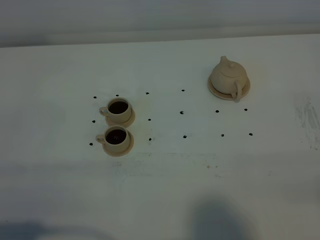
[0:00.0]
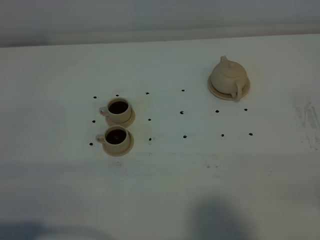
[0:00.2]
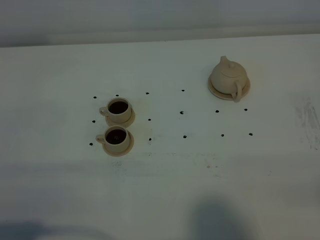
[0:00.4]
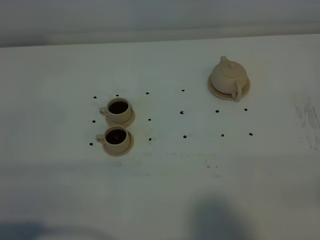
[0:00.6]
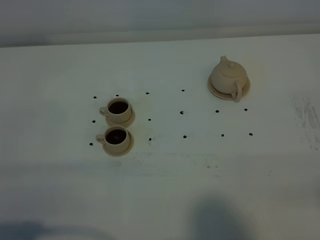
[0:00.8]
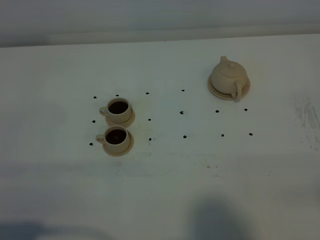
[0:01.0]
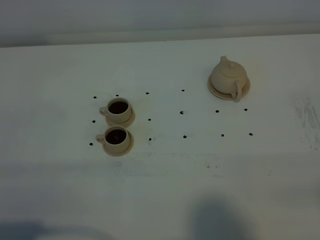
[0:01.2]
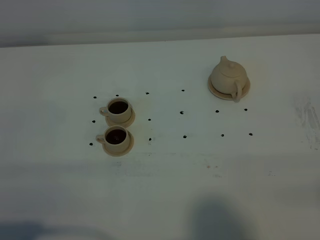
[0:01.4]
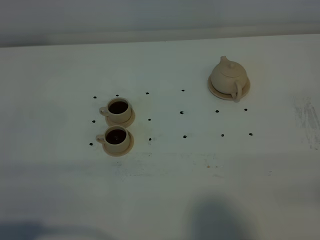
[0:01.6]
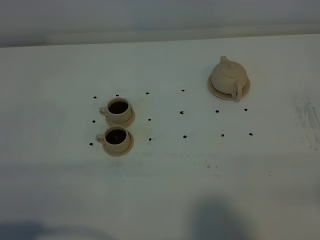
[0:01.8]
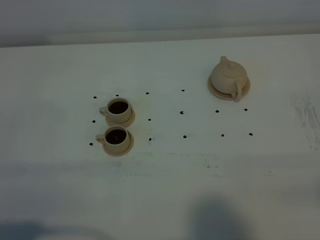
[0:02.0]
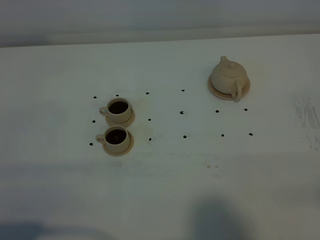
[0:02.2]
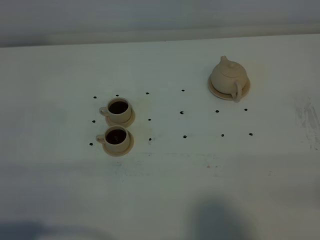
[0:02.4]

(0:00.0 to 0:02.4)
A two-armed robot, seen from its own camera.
Task of the whole recording: grasp the brown teapot and pour the tea into the two brown teacups one by one, put the brown teapot back in its original place.
0:01.2 - 0:02.4: Neither gripper changes place.

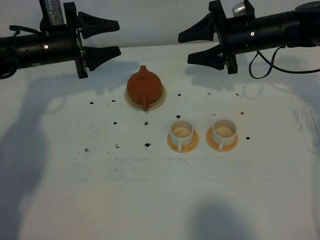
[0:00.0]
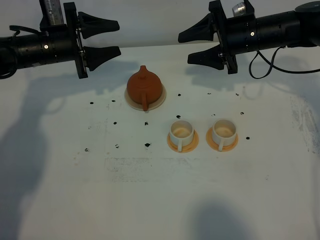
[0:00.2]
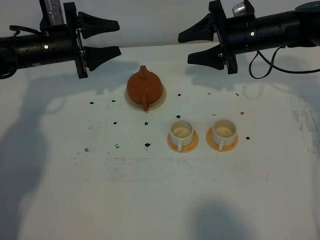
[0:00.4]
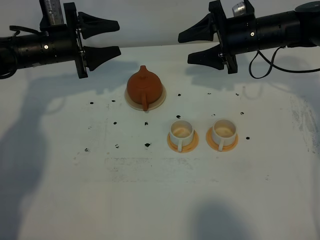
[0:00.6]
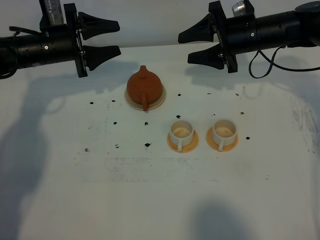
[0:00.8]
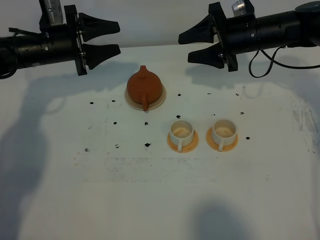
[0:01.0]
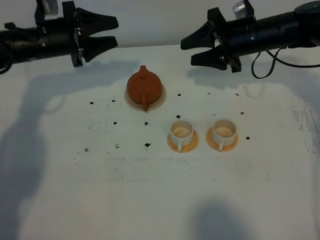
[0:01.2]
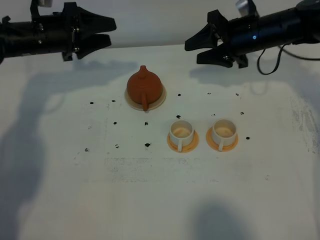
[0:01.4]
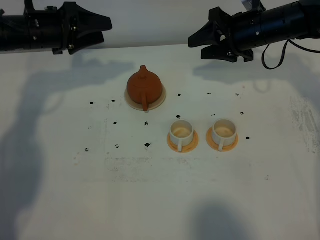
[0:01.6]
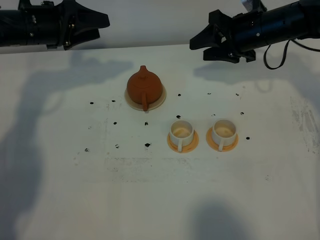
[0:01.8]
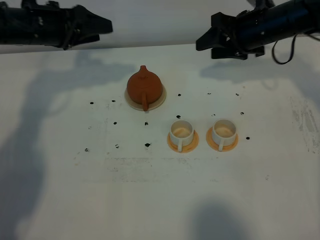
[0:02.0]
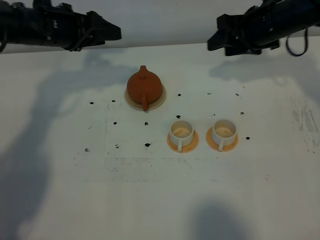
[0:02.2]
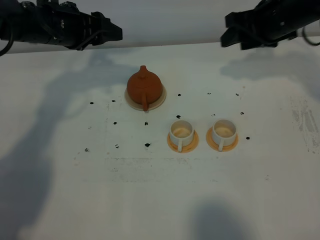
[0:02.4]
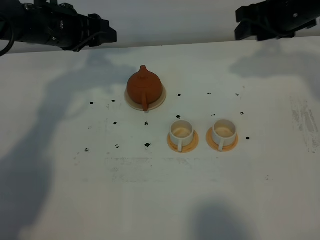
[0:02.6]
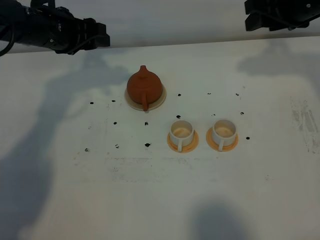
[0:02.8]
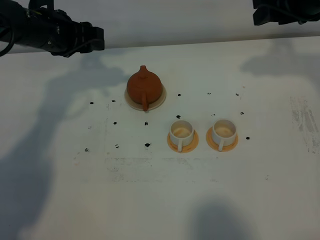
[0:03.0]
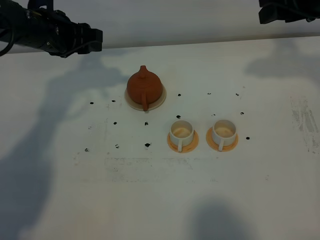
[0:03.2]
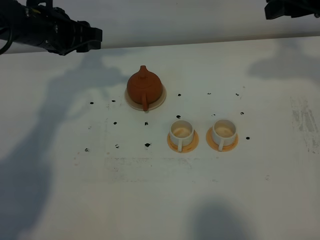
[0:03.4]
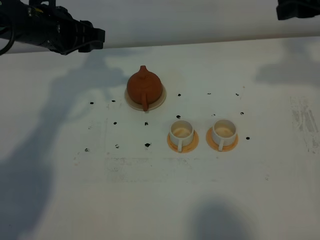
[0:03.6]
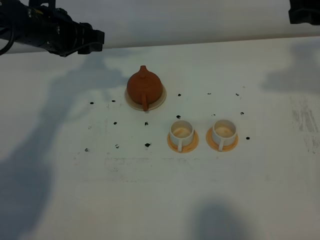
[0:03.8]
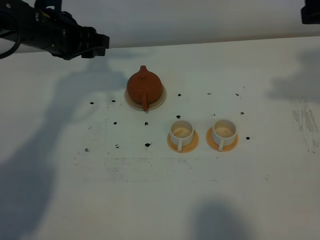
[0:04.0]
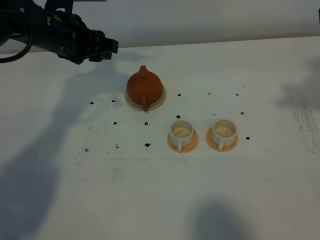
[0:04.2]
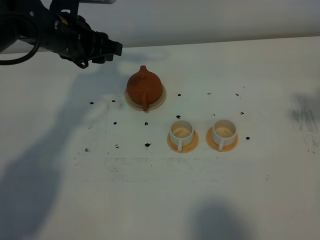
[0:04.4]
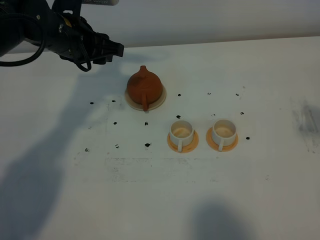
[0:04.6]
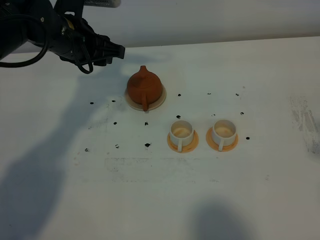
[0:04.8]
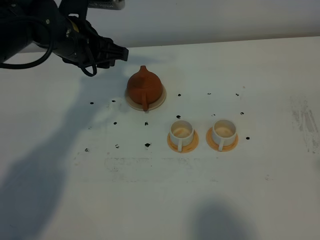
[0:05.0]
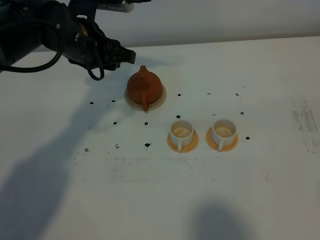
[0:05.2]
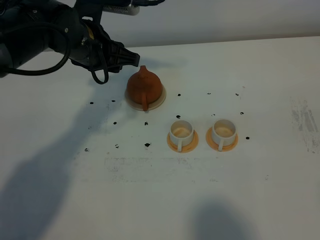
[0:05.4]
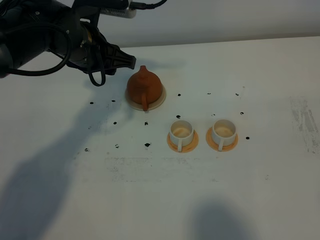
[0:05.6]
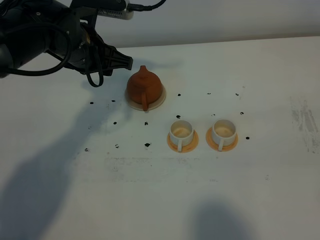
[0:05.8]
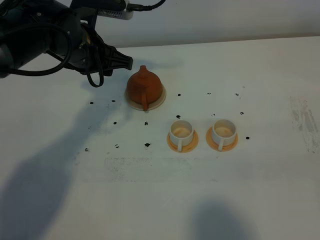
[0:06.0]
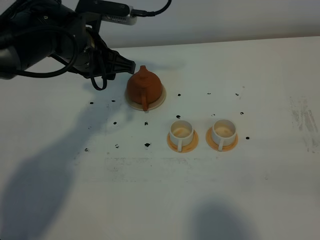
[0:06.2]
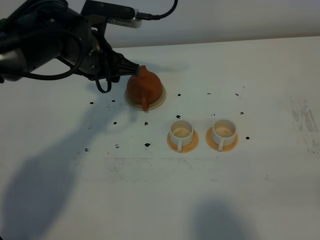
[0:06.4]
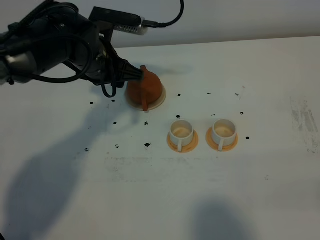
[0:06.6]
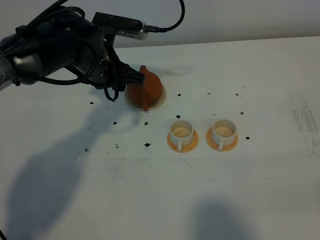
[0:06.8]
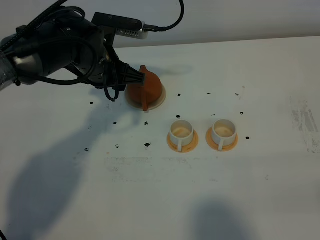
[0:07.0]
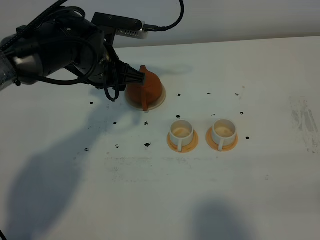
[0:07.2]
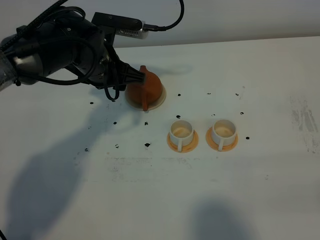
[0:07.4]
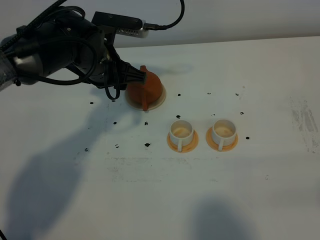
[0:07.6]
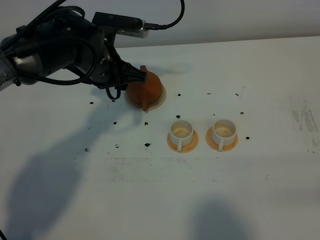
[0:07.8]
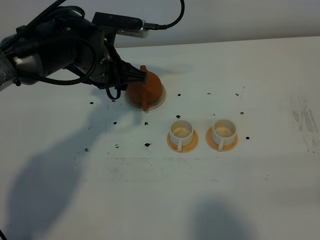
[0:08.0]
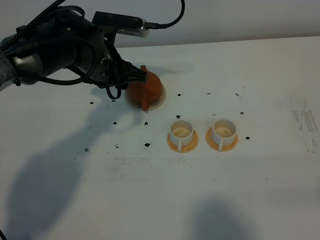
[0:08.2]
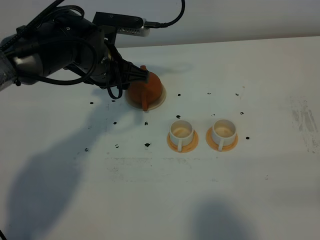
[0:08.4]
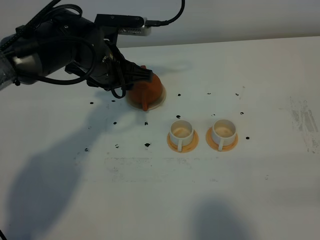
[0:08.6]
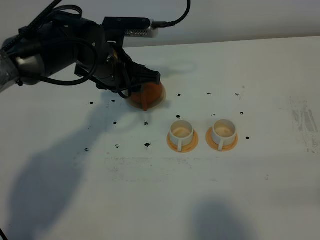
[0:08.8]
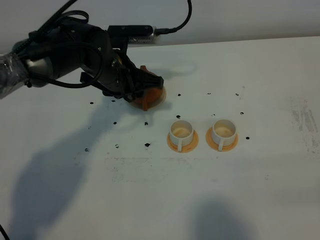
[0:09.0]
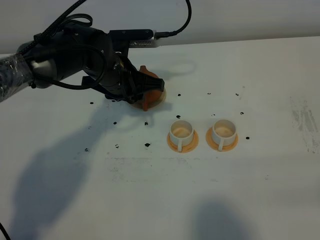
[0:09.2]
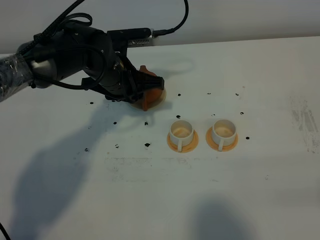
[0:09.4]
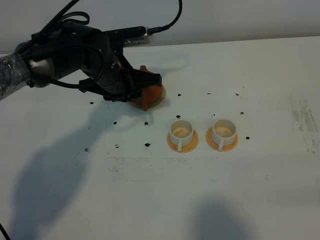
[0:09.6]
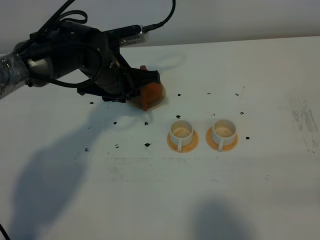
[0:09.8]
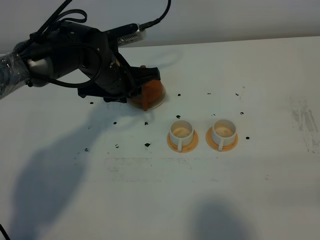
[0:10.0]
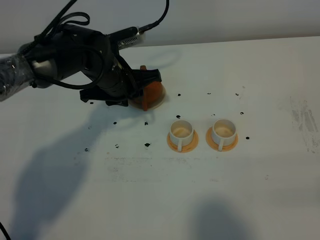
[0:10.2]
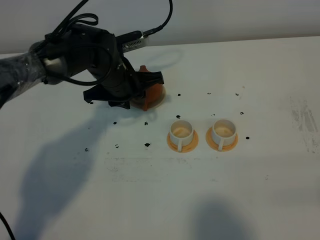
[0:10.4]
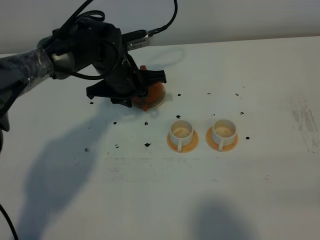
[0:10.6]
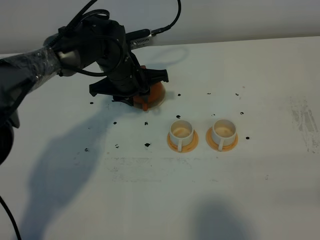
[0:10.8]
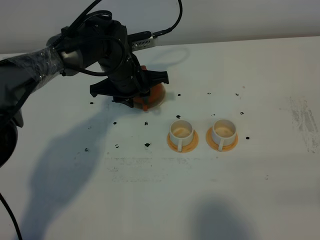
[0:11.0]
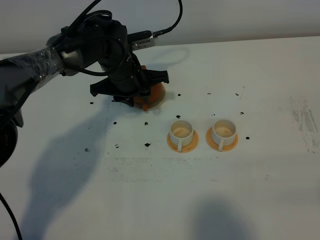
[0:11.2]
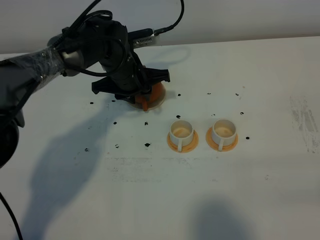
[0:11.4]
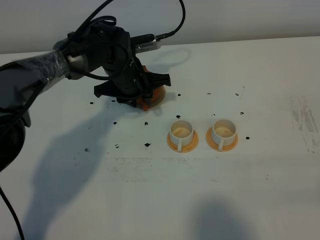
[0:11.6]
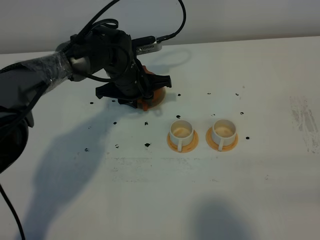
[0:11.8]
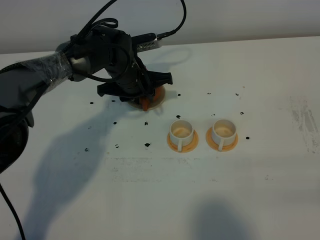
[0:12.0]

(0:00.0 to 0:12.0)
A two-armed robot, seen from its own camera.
Task of the whole recording: grasp the brown teapot and pour the tea into the two white teacups one by one, put the brown teapot back in its original place.
0:00.0 - 0:01.6: The left gripper goes about 5 cm upward.
0:01.6 - 0:03.0: The right gripper heads upward and backward, covering some 15 cm.
0:03.0 - 0:04.4: The right gripper goes roughly 20 cm backward and upward.
0:04.4 - 0:06.0: The right gripper is displaced backward and downward by about 20 cm.
0:06.0 - 0:07.6: The right gripper goes about 5 cm downward.
0:07.6 - 0:09.0: The grippers make only small movements.
0:10.4 - 0:12.0: The grippers make only small movements.

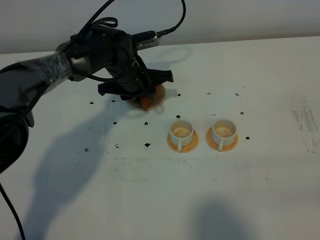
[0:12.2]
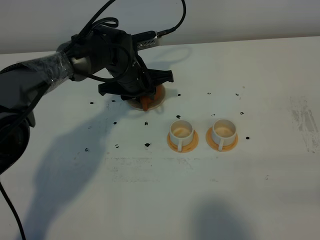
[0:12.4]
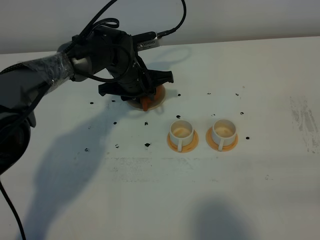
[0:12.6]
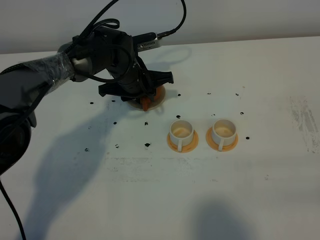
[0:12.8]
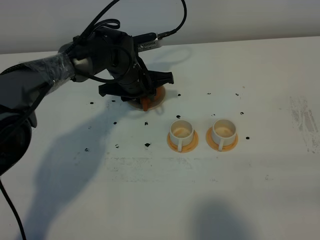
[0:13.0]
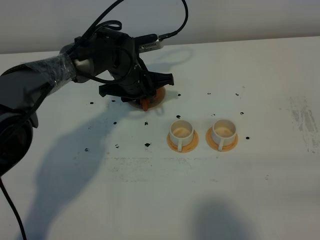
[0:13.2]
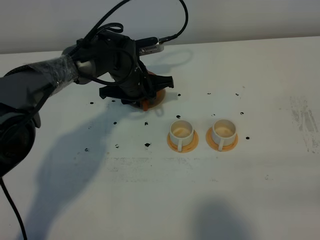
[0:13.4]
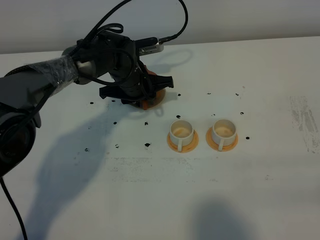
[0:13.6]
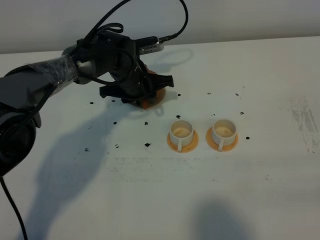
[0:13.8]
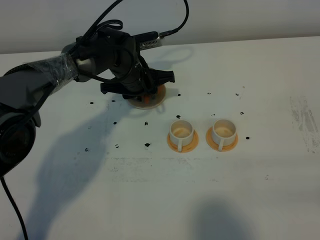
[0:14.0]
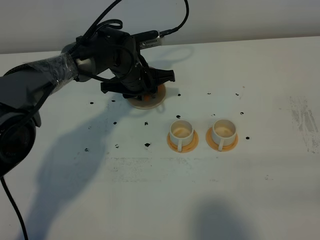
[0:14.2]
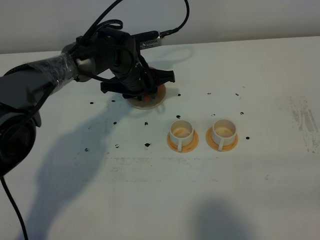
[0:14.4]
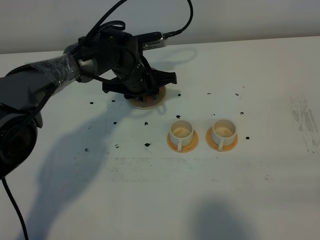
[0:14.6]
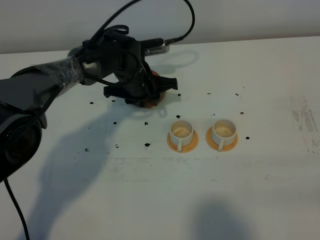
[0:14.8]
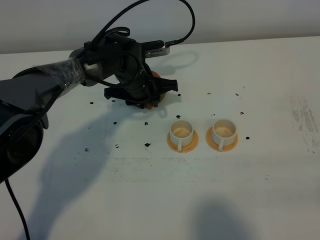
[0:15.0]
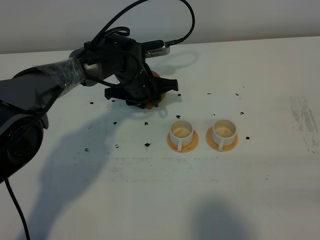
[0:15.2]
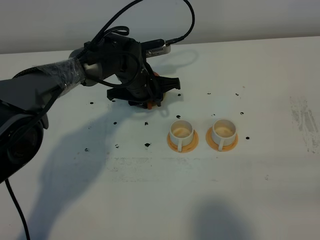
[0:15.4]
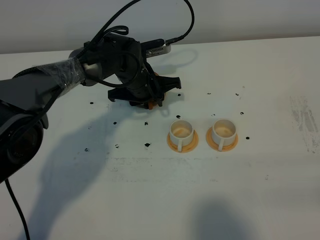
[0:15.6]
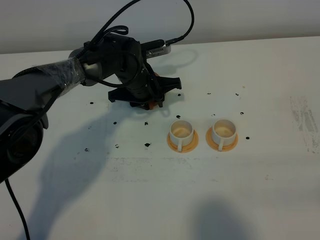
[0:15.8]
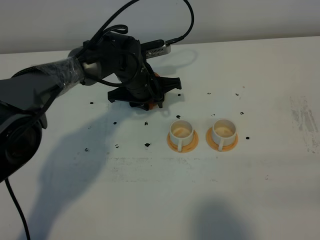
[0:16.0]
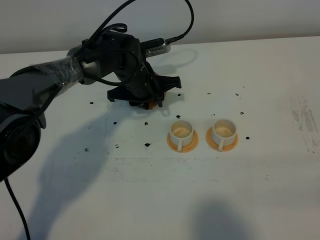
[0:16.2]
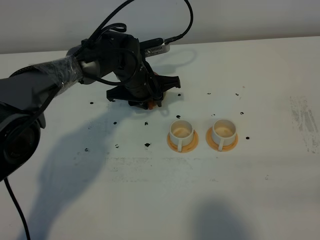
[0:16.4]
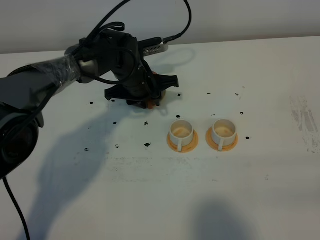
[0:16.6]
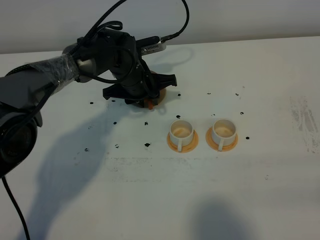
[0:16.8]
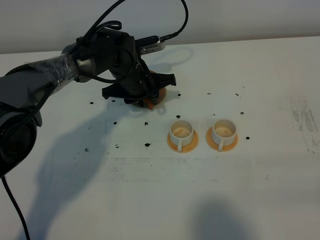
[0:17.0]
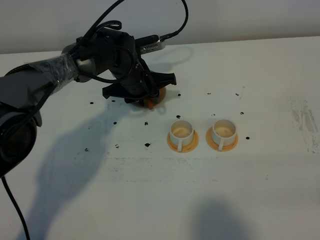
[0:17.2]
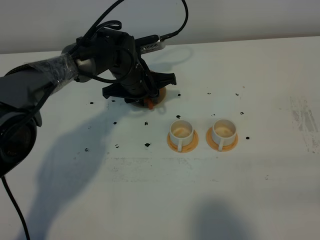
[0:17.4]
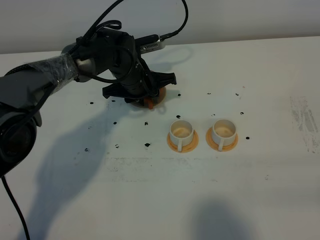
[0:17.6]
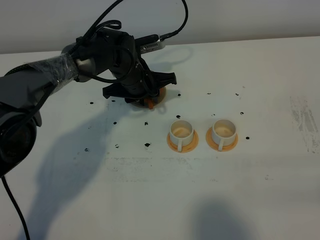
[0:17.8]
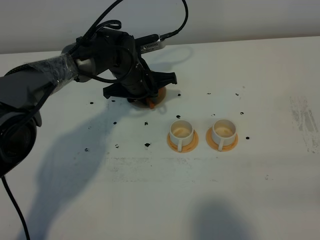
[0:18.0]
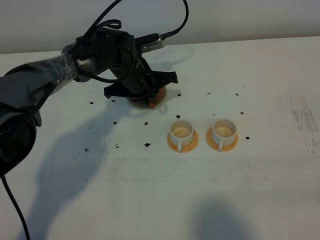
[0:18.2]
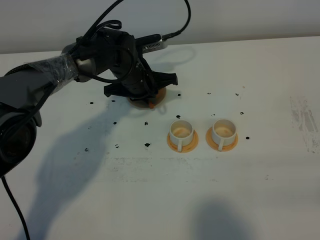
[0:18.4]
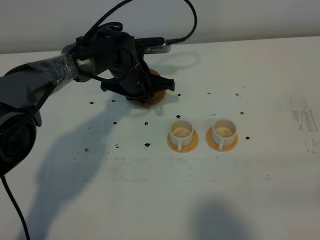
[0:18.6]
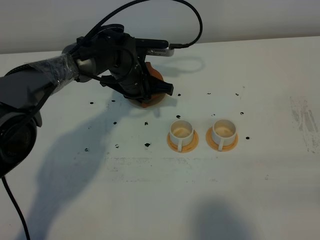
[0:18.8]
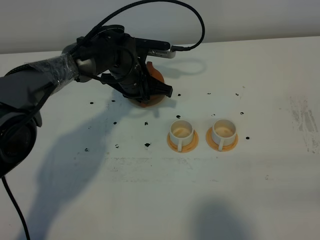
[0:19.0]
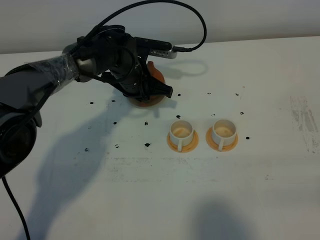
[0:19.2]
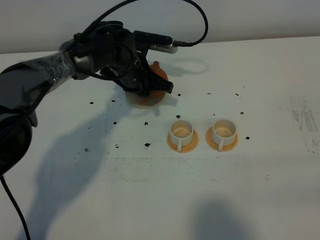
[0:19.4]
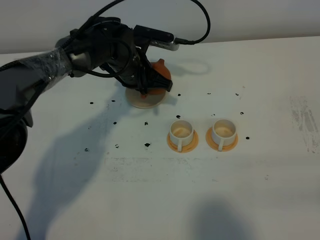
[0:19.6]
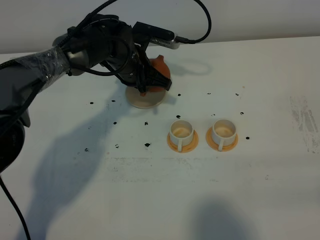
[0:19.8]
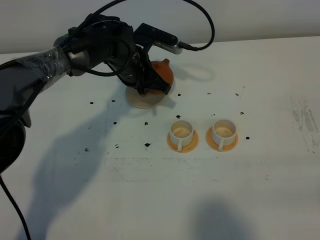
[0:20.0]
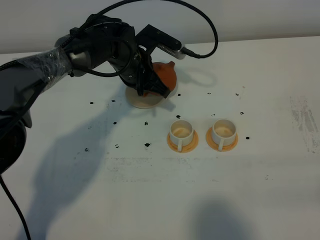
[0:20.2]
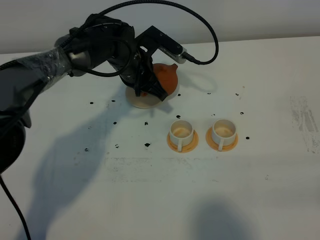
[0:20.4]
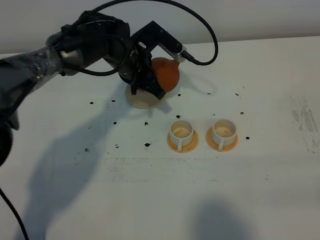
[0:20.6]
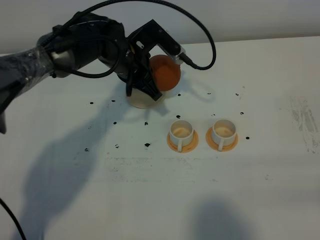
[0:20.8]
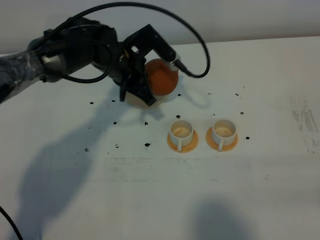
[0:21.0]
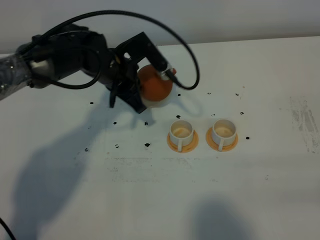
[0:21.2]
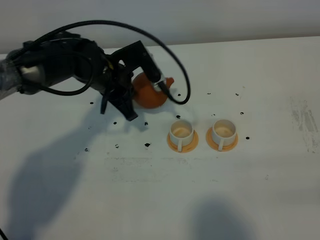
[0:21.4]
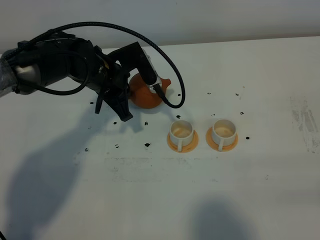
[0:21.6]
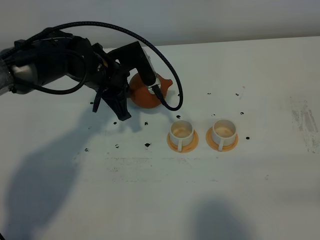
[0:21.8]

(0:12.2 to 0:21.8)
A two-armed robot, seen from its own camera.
Task of the whole recording: grasp the brown teapot and pour the tea into the two white teacups one by one, put the brown teapot back in its original place.
Step, 0:12.2 - 0:20.0: Pick up the teapot with the left gripper.
0:12.2 - 0:13.8: Both grippers stay about where they are.
0:13.8 - 0:15.4: The grippers move only a little.
0:15.4 - 0:17.0: Both grippers stay about where they are.
0:17.0 - 0:18.6: The left gripper closes.
0:20.2 - 0:21.8: The left gripper heads to the left, covering roughly 5 cm.
